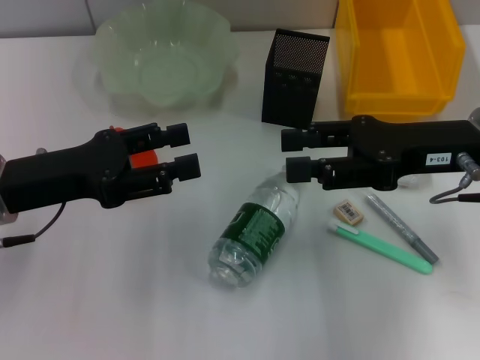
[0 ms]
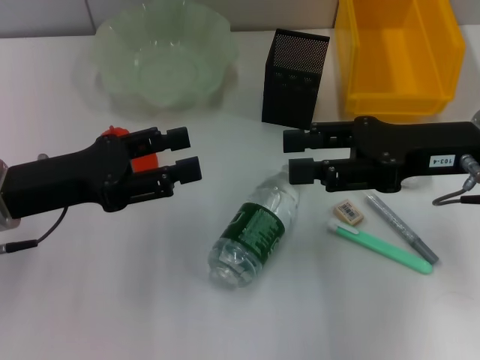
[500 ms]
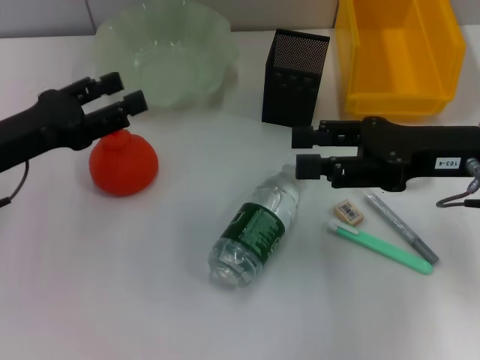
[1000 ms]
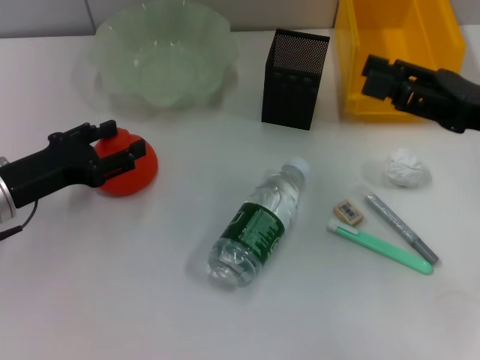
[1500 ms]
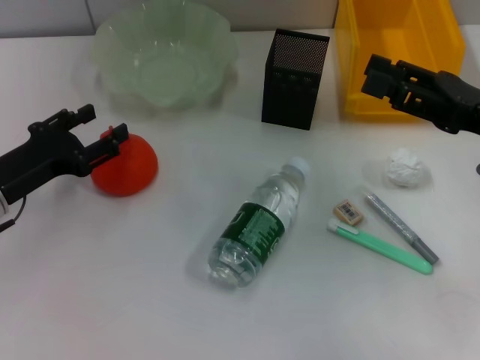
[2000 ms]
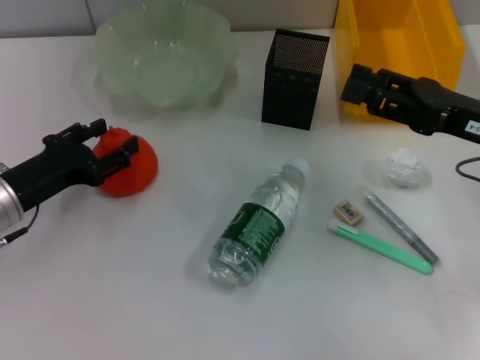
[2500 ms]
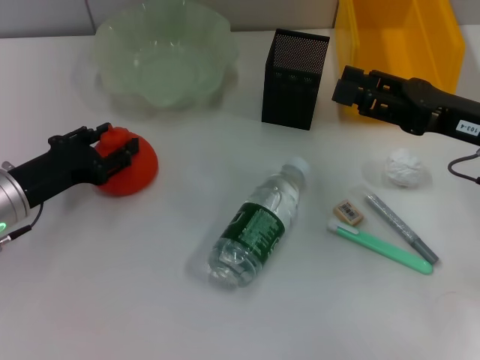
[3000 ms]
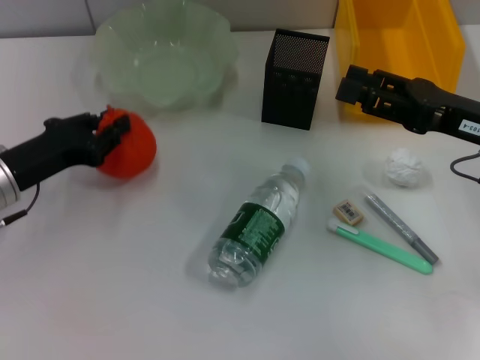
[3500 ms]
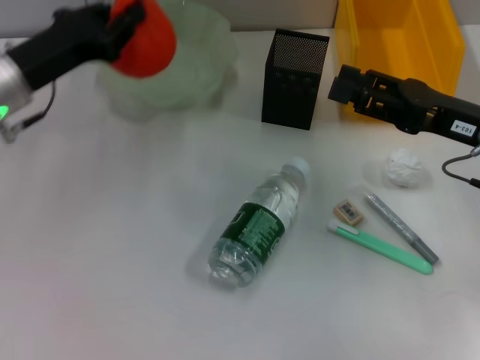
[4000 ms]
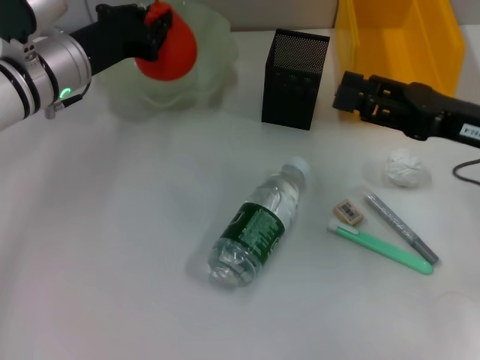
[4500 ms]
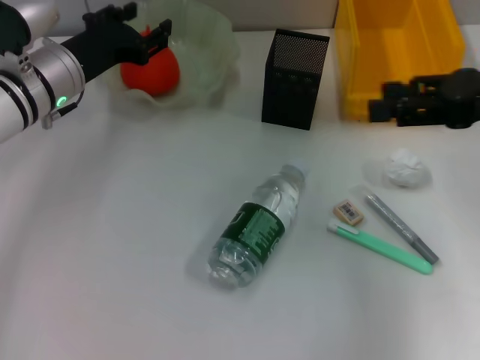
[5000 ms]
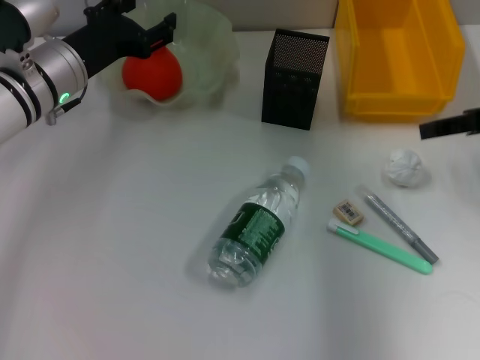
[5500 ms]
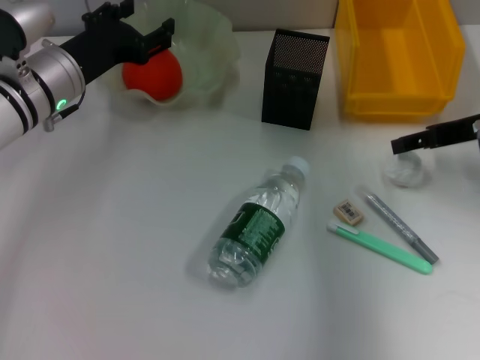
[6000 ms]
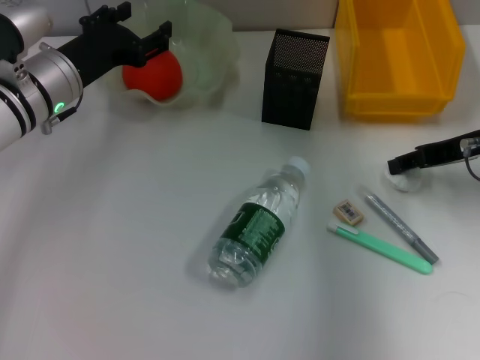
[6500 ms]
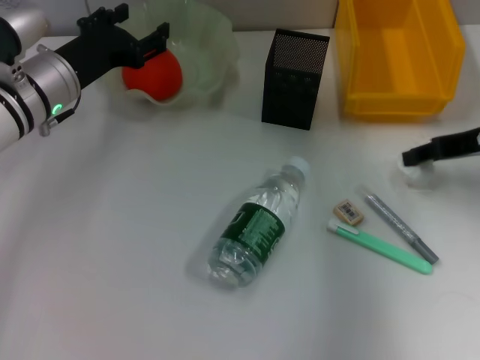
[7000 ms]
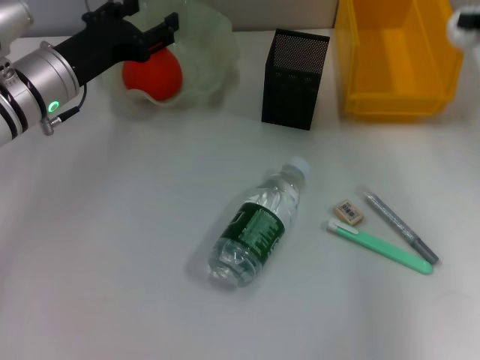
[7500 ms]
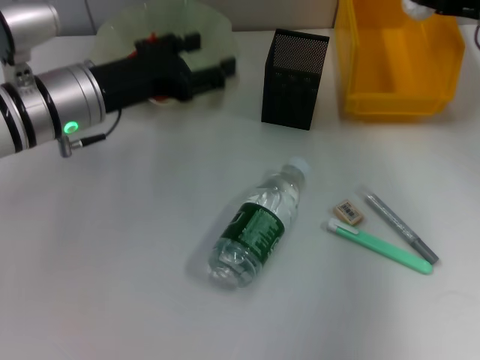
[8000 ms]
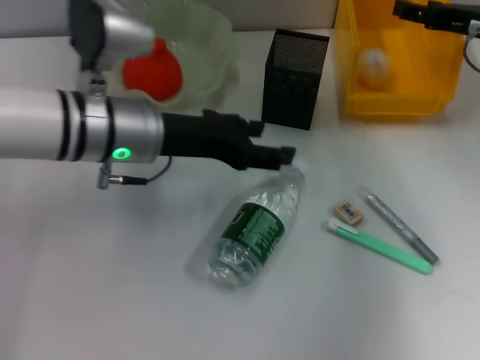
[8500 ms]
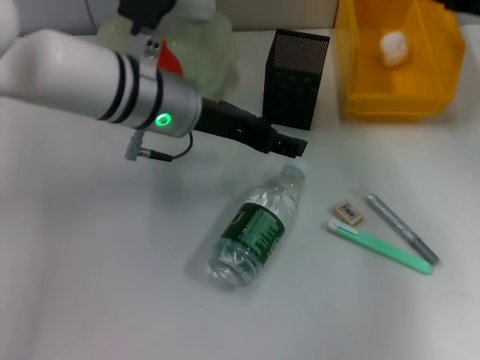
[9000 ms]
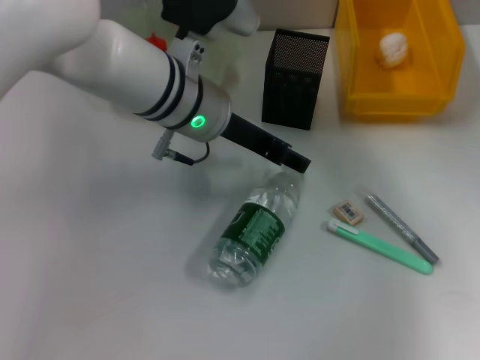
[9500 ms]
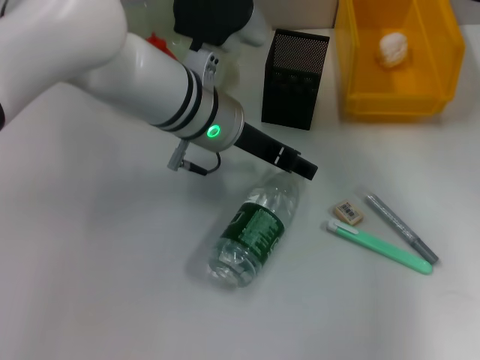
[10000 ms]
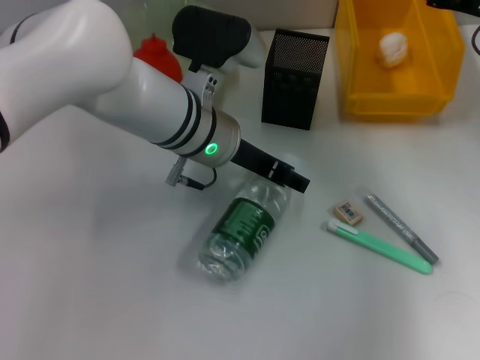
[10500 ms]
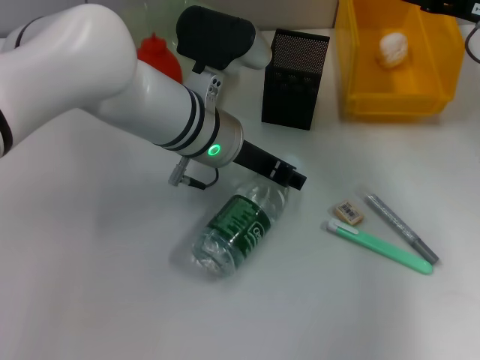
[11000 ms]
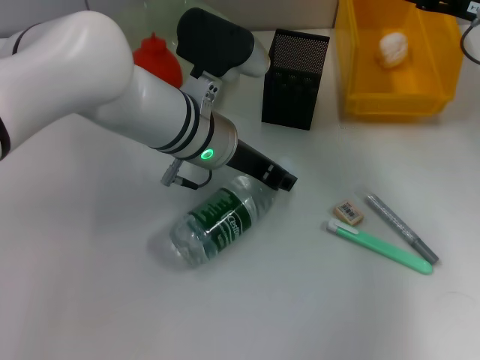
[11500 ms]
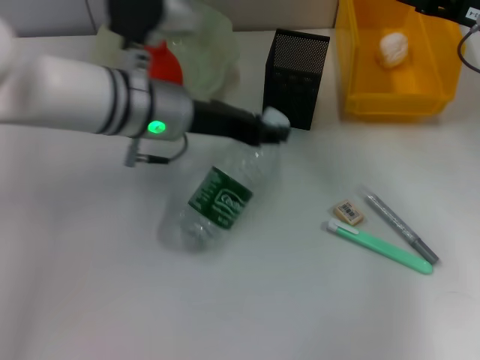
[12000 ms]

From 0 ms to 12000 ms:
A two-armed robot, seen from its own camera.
Step, from 0 ms to 3000 ms: Grab the orange with the left hand.
Step, from 3500 ms to 4500 ms: Place the orange into the fruit bowl with the left hand.
Step, from 5000 ms to 6000 ms: Grab the paper ball with the right hand.
Step, from 6500 ms to 8000 ms: Place the paper ball into the trash can with the right hand.
Step, from 8500 ms to 11500 ms: Grab the water bottle with the right hand.
From 0 ms to 2000 ms: The right gripper is displaced to the right by about 5 cm; the left gripper moves downward, some 5 cm.
From 2000 ms to 4000 ms: The left gripper travels upward and forward by approximately 10 cm, and closes up.
From 4000 ms to 6000 ms: The right gripper heads forward, covering about 5 cm, and travels upward and back again, roughly 10 cm each way, while the left gripper changes place by about 5 cm, and opens.
From 6000 ms to 8000 ms: The right gripper goes some 5 cm forward, and closes its fingers; the left gripper changes place by about 5 cm.
From 8000 ms to 10000 ms: The right gripper opens. Meanwhile the left gripper heads to the right, covering some 15 cm.
From 10000 ms to 12000 ms: The left gripper goes about 5 cm to the left, and closes up.

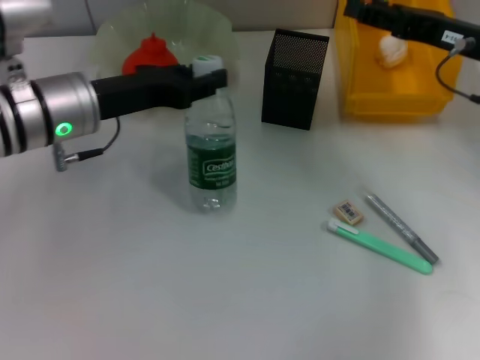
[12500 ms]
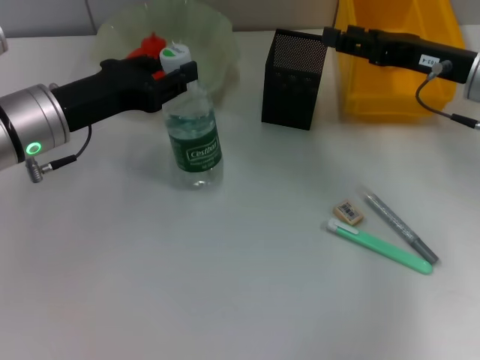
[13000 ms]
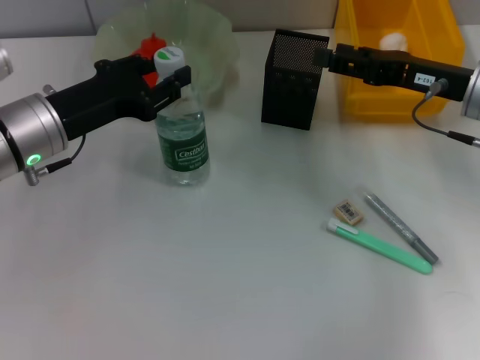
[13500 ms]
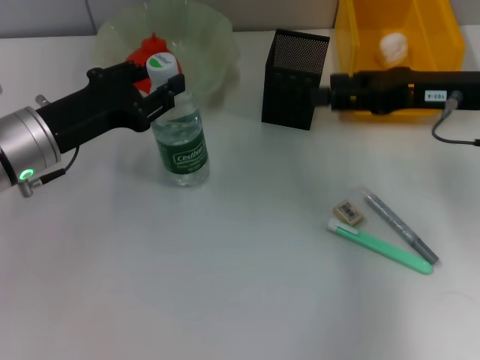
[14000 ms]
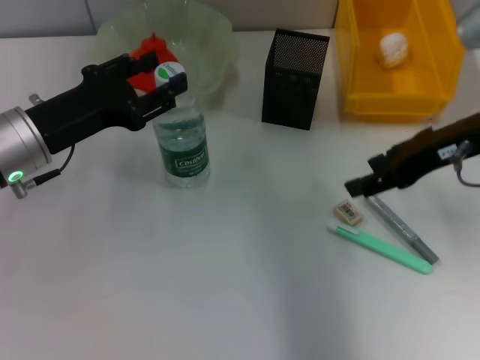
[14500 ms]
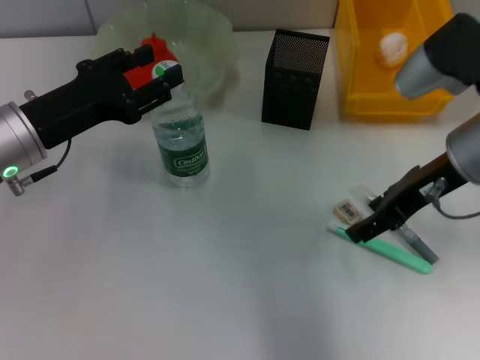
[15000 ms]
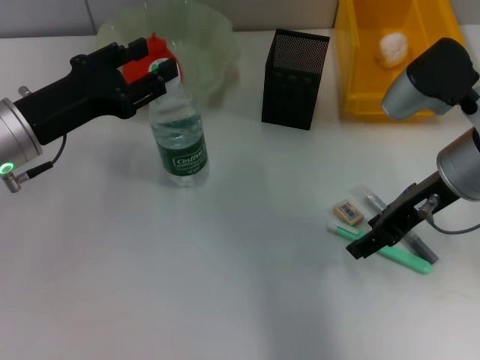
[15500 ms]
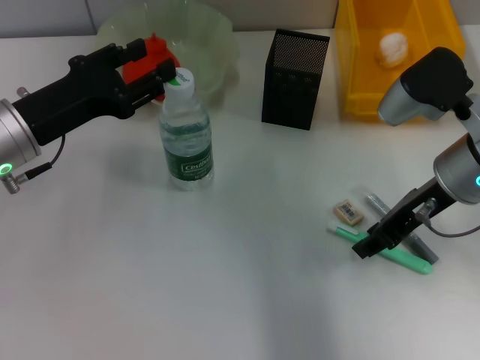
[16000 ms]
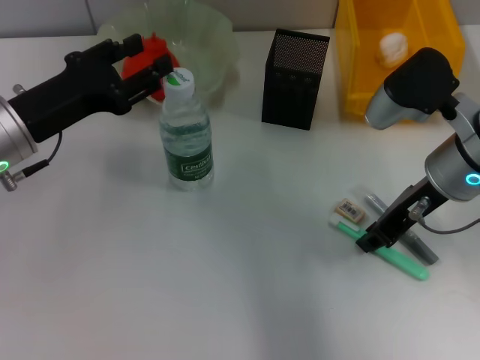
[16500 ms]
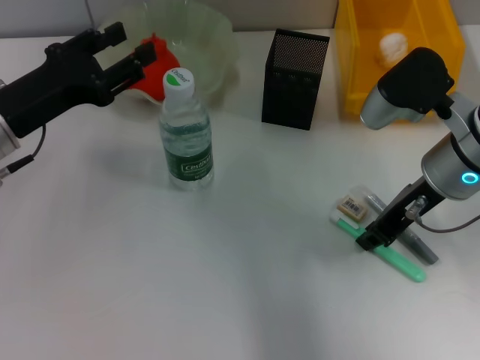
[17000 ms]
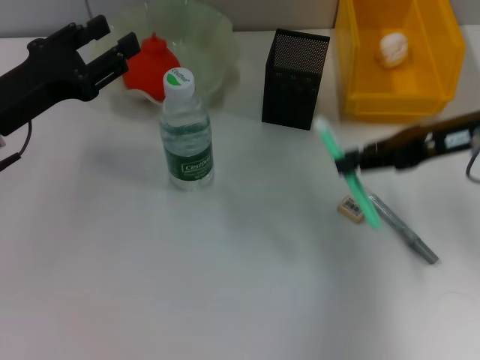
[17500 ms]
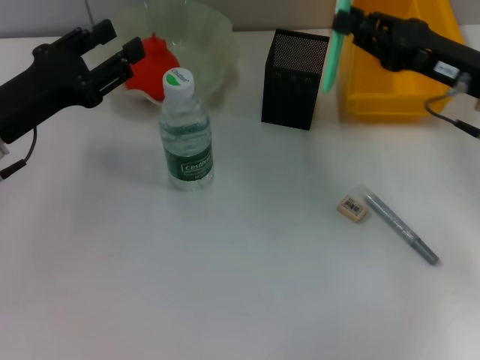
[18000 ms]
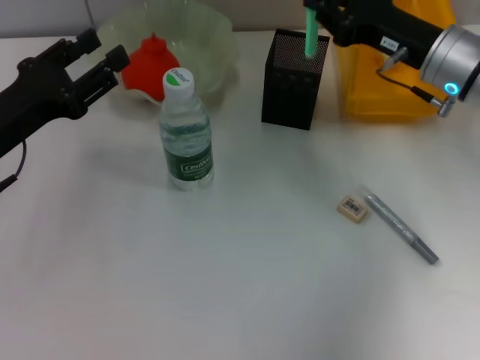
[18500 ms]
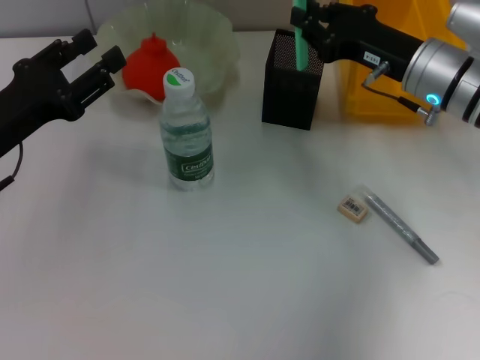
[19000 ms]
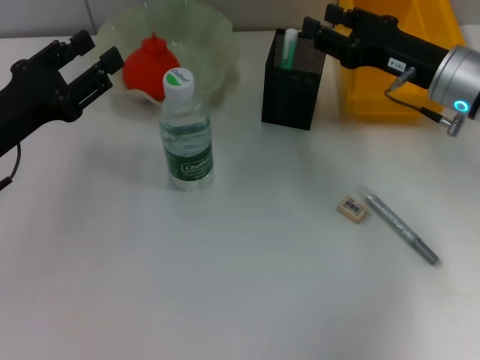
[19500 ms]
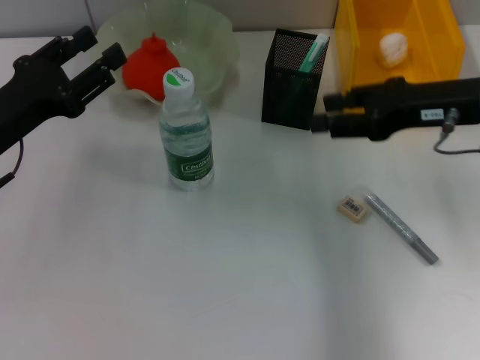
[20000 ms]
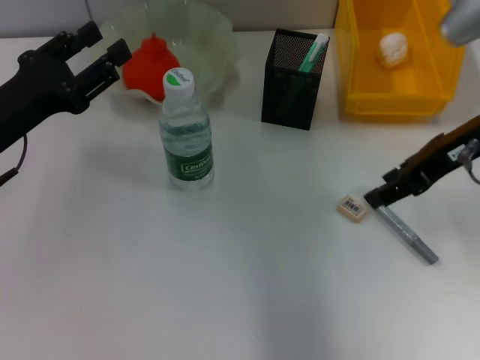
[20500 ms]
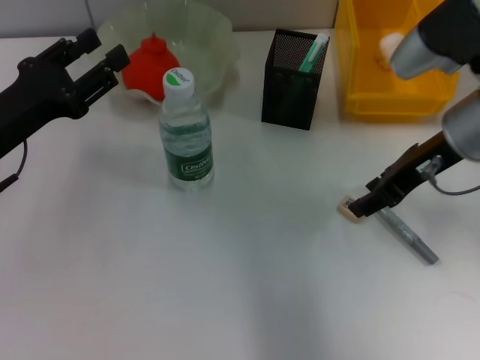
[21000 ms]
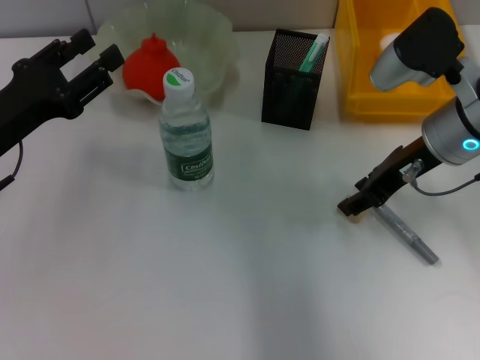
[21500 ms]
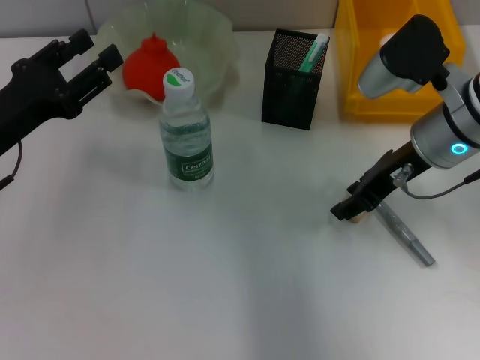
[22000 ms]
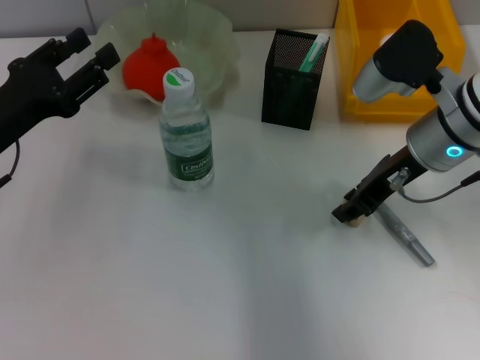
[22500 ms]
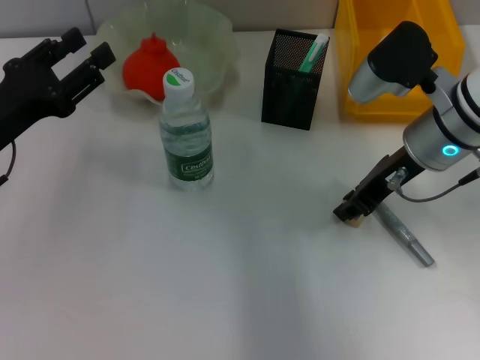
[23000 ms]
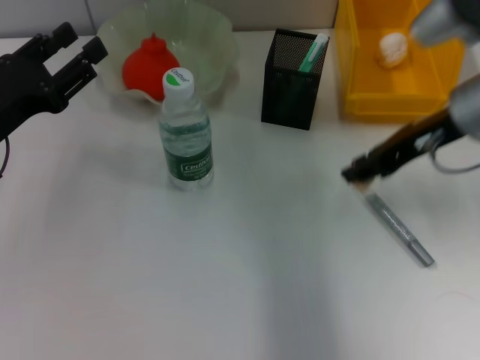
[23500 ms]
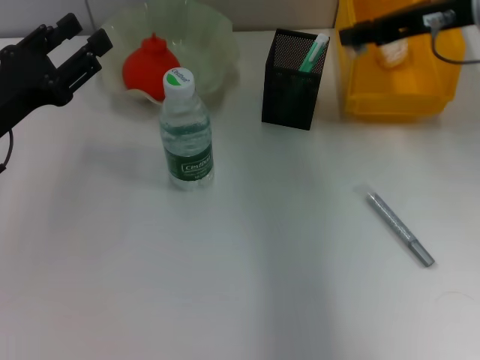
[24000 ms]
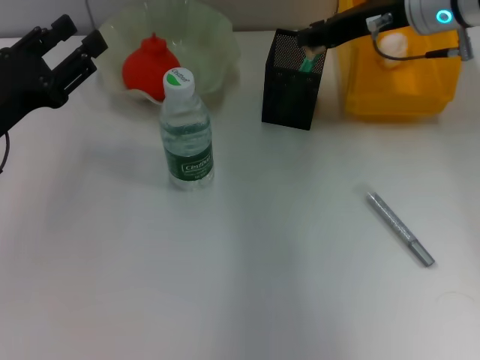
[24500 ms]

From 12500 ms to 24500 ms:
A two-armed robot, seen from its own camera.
Step, from 12500 ms to 14500 ms: Place the water bottle on the table with the left hand.
Step, from 15000 ms to 17000 ms: Grab the blue utility knife with the right hand.
Step, from 17500 ms to 19000 ms: Place the blue utility knife into the pen holder with the right hand.
Step, from 19500 ms to 23000 ms: Grab the eraser with the right hand.
From 12500 ms to 14500 ms: The right gripper changes place by some 5 cm; the left gripper shifts by about 5 cm.
From 14500 ms to 16500 ms: The right gripper moves about 5 cm, and closes.
From 16500 ms to 18500 ms: The right gripper moves forward, approximately 5 cm.
From 18500 ms to 20500 ms: The right gripper travels upward and backward by roughly 10 cm, and opens up.
From 20500 ms to 22500 ms: The right gripper heads downward, covering roughly 5 cm.
From 22500 ms to 24500 ms: The right gripper shifts about 10 cm forward and upward.

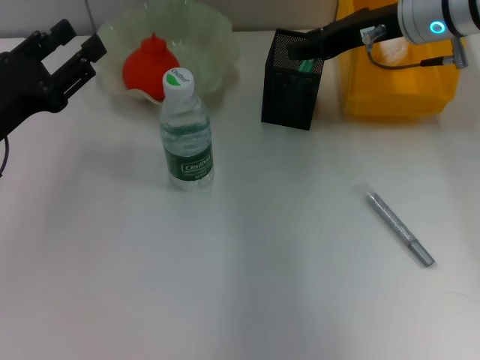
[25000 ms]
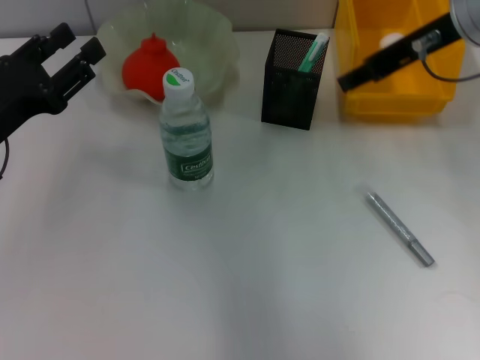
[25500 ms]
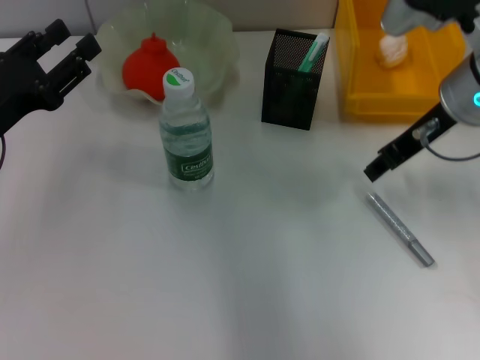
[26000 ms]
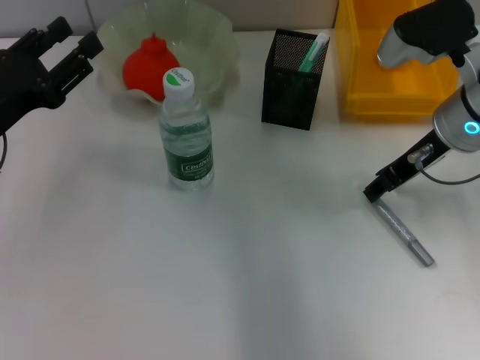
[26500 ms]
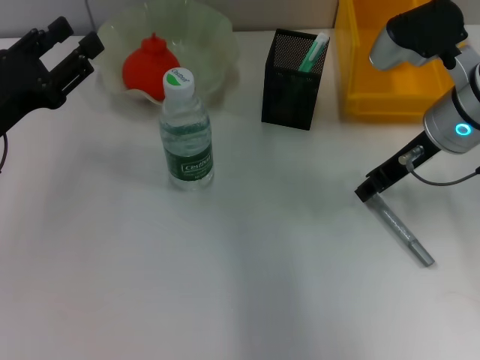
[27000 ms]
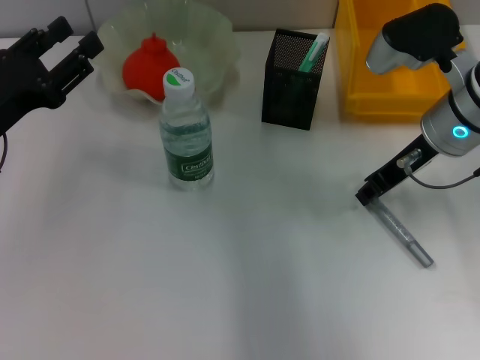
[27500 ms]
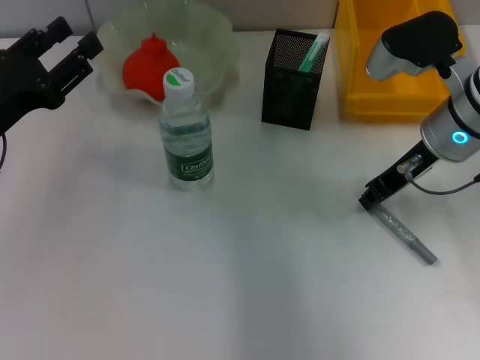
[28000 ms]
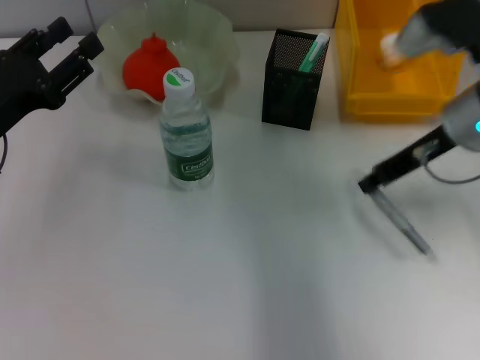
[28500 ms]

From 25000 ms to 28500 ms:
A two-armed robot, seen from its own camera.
Step, from 25000 ms to 28000 ms: Grab the gray glue with the right hand.
From 25000 ms to 27000 ms: The right gripper shifts roughly 5 cm backward.
From 27000 ms to 28500 ms: The right gripper closes its fingers.
